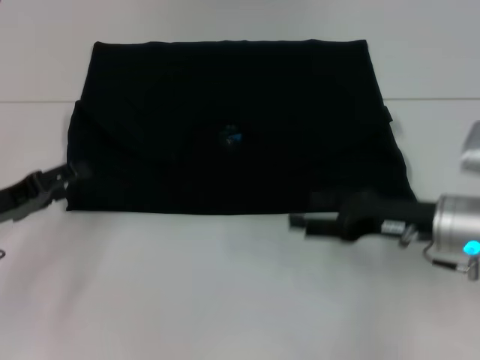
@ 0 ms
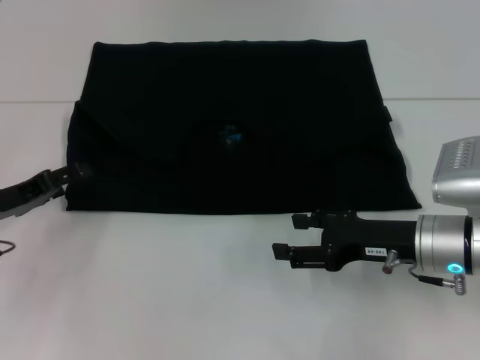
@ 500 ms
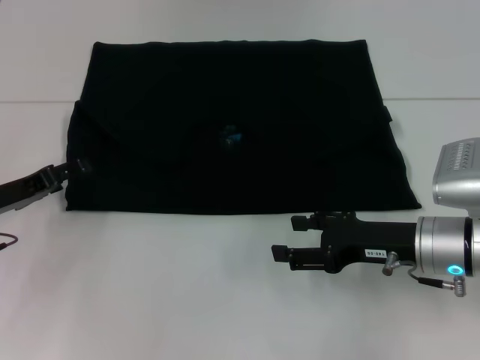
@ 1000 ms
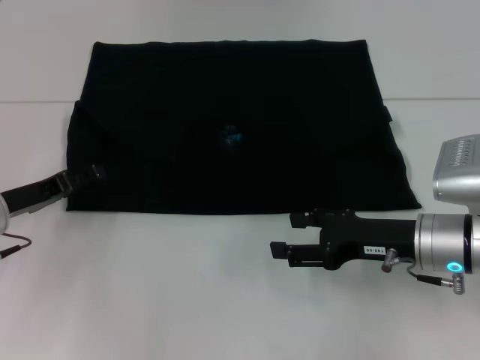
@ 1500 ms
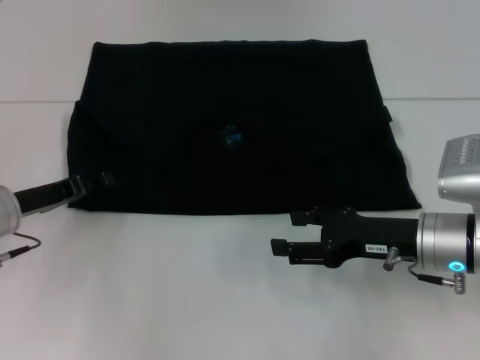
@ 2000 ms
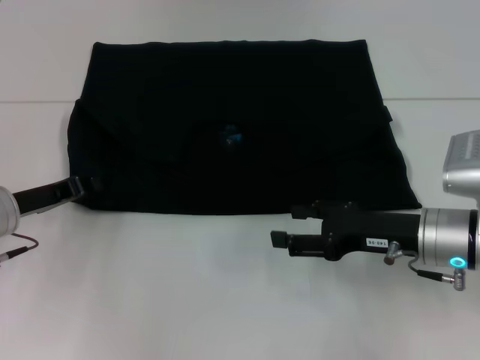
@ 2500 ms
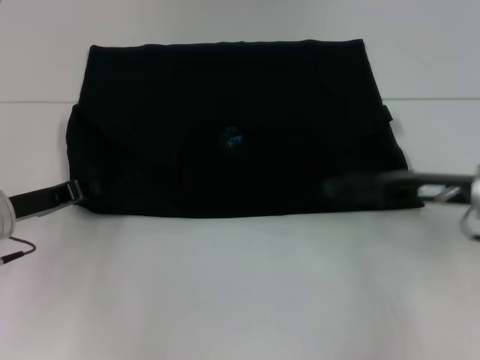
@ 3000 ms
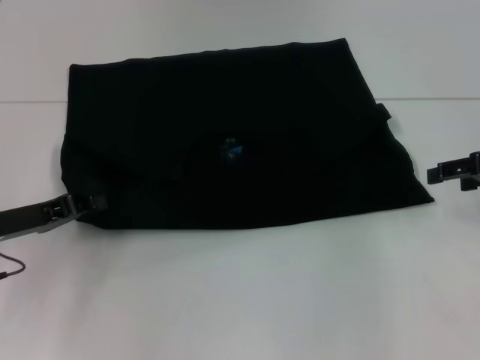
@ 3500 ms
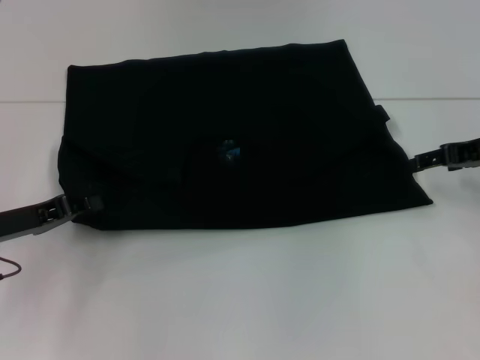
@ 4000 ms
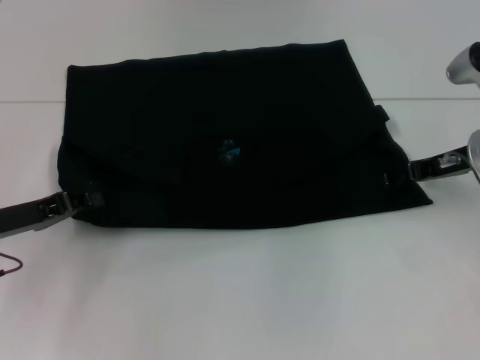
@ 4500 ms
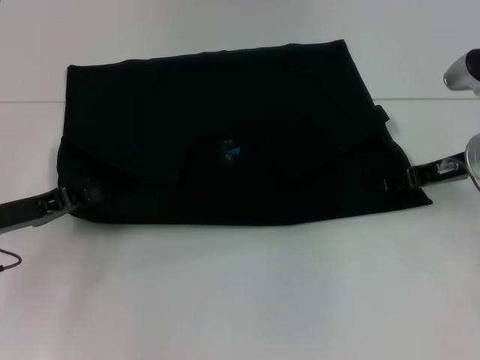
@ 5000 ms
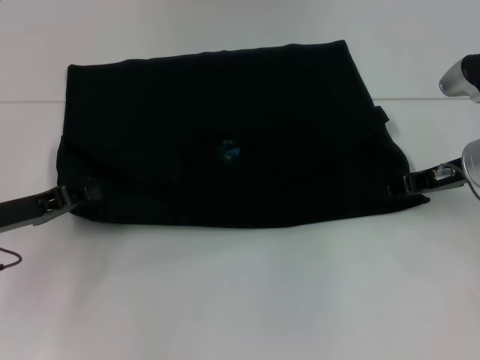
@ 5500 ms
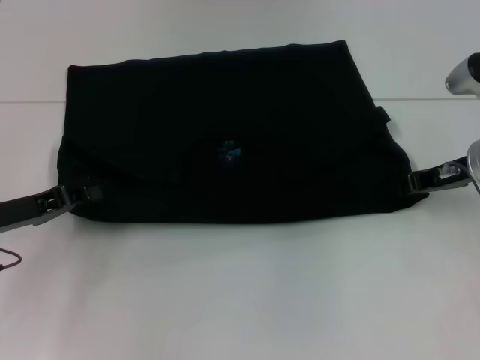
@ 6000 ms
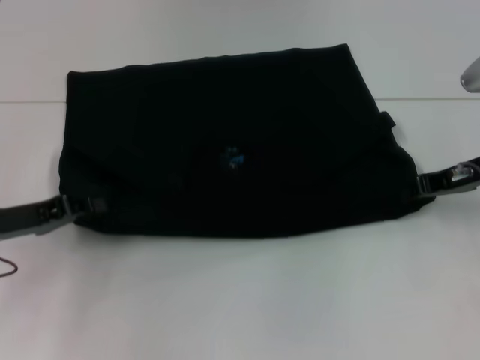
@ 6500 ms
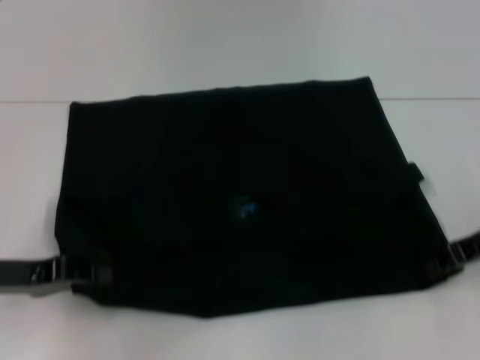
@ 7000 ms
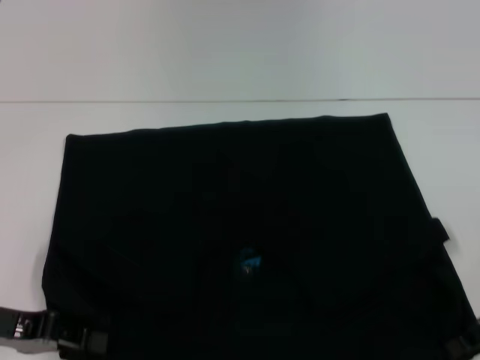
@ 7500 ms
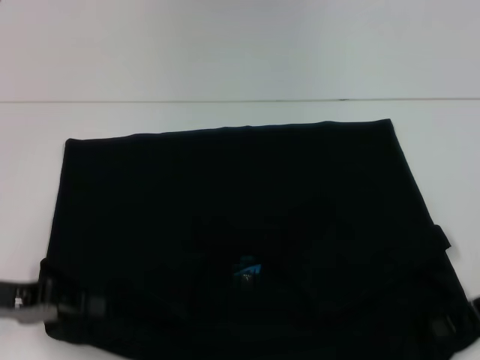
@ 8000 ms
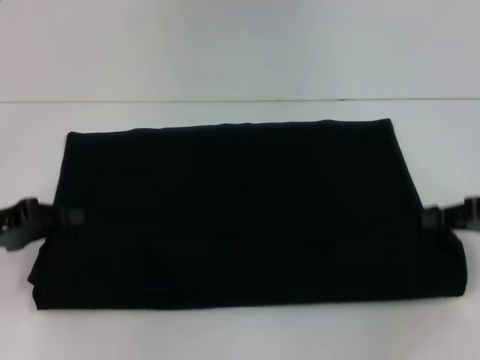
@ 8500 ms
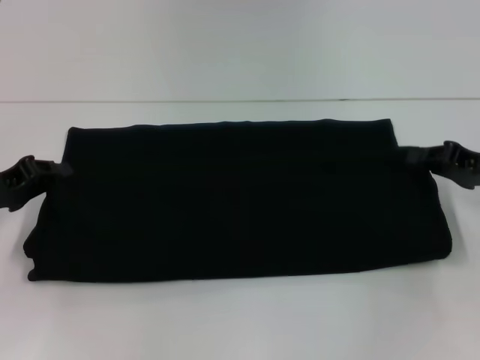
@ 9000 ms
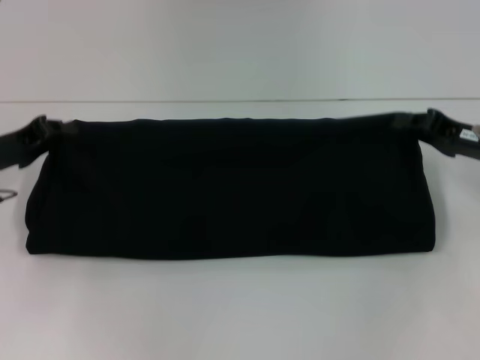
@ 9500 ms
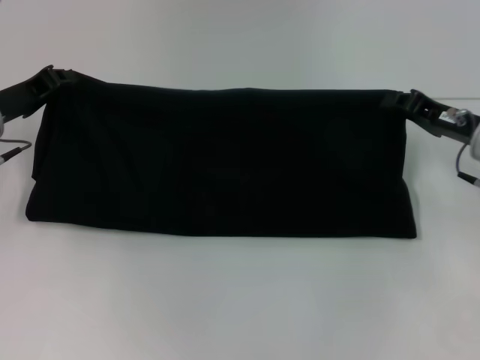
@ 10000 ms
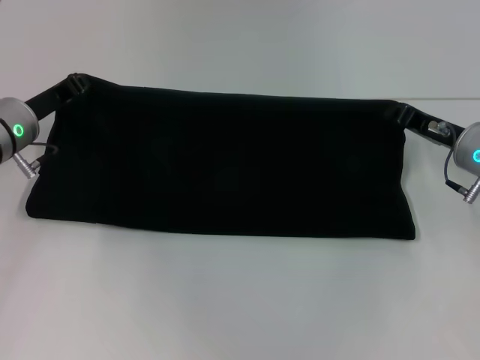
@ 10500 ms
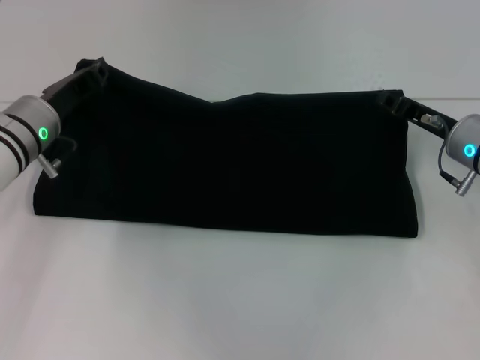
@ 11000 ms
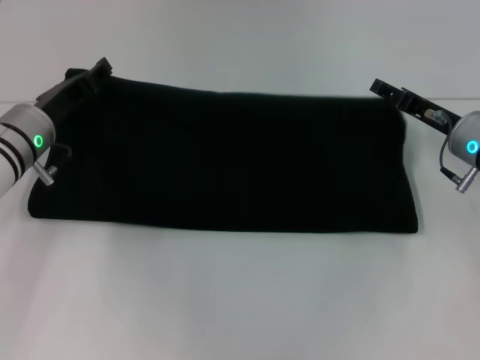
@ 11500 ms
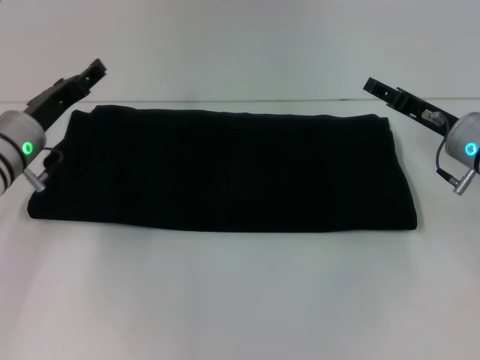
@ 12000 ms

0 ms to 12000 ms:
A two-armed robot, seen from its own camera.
Step, 0 ms to 7500 ms: Pull the clothes with your left hand.
Step, 0 ms to 7500 ms: Pull the clothes with your right hand.
Step, 8000 ms to 11500 ms: Fold the clothes with your right hand.
0 ms to 2000 ms: The left gripper shifts by roughly 5 cm.
2000 ms to 4000 ms: The left gripper closes, while the right gripper is displaced to the right, forward and upward by approximately 15 cm.
4000 ms to 6000 ms: The right gripper changes place by approximately 5 cm, and closes up.
6000 ms to 8000 ms: The right gripper shifts approximately 10 cm backward and to the right, while the left gripper heads backward, covering some 5 cm.
8000 ms to 10000 ms: The right gripper moves forward, roughly 10 cm. The left gripper shifts some 15 cm forward.
10000 ms to 12000 ms: The right gripper opens up; the left gripper shifts by roughly 5 cm, and opens its fingers.

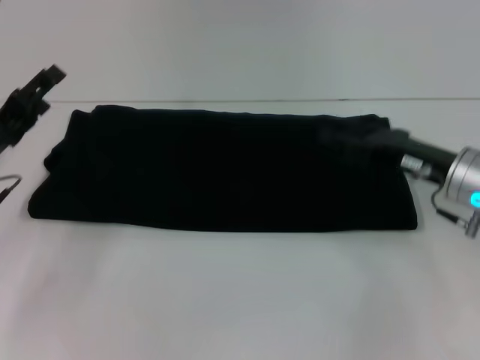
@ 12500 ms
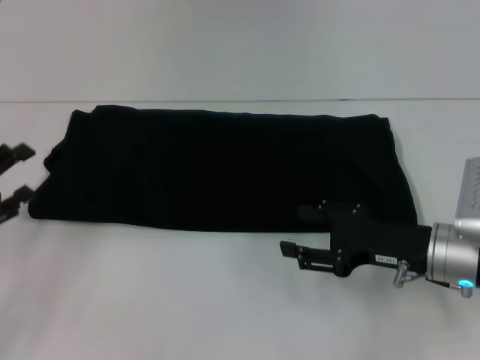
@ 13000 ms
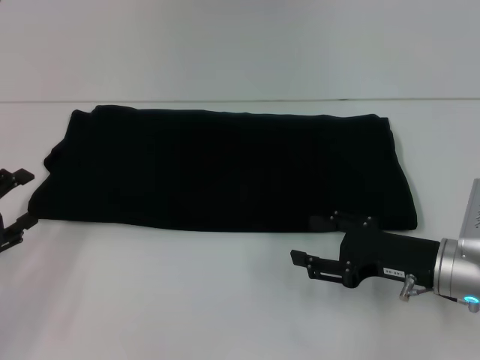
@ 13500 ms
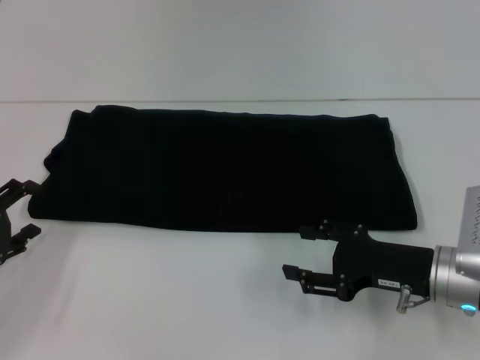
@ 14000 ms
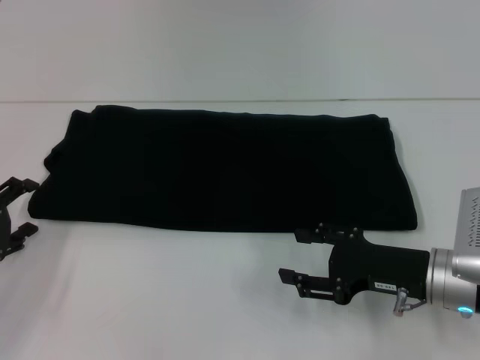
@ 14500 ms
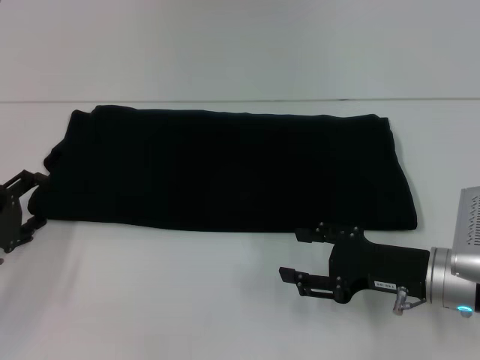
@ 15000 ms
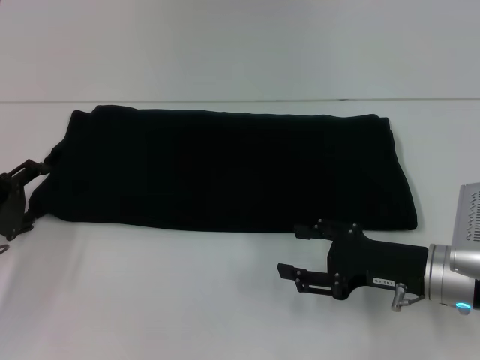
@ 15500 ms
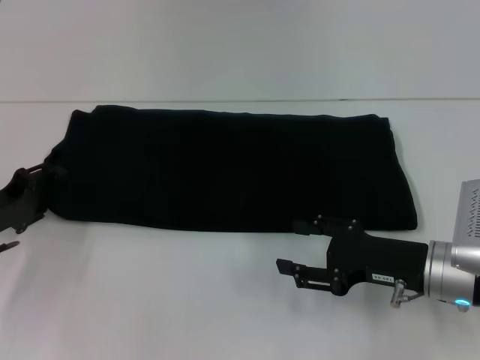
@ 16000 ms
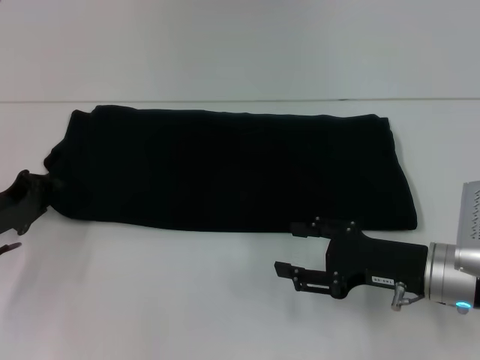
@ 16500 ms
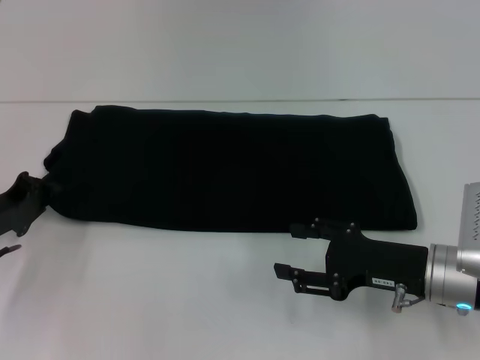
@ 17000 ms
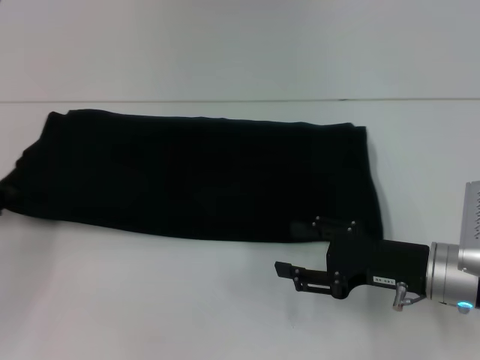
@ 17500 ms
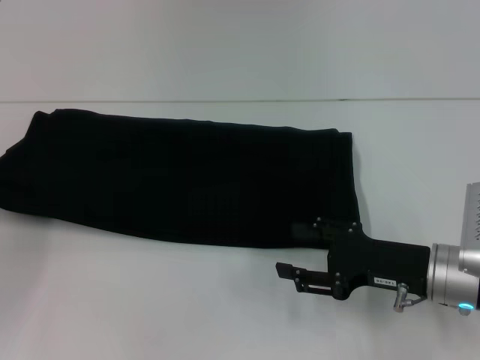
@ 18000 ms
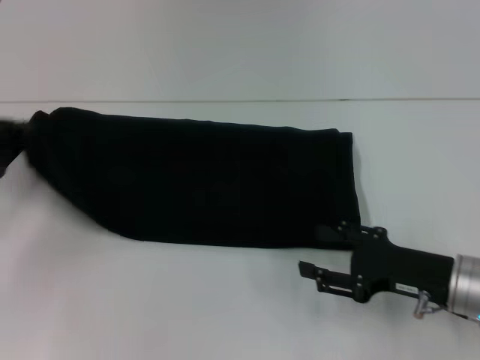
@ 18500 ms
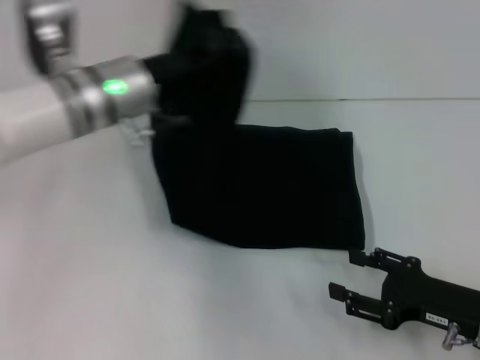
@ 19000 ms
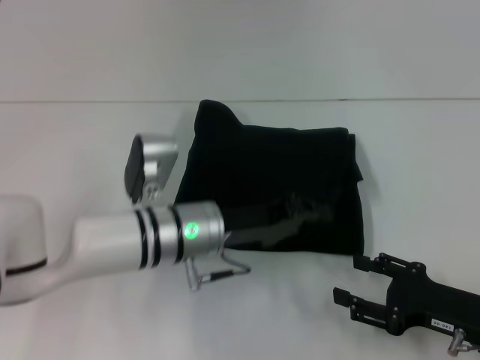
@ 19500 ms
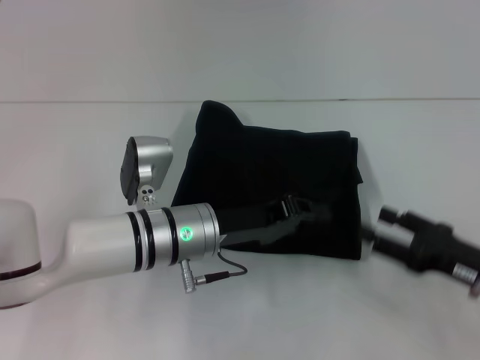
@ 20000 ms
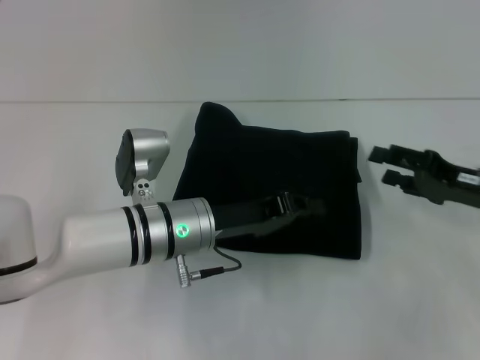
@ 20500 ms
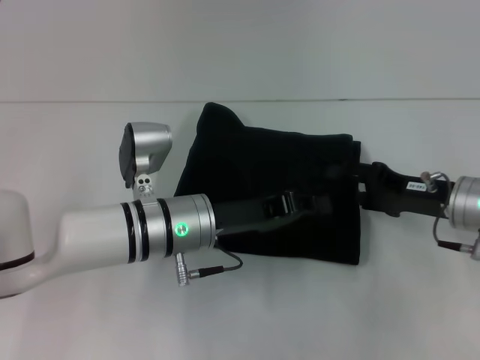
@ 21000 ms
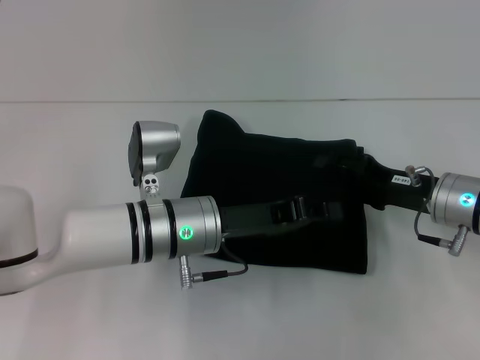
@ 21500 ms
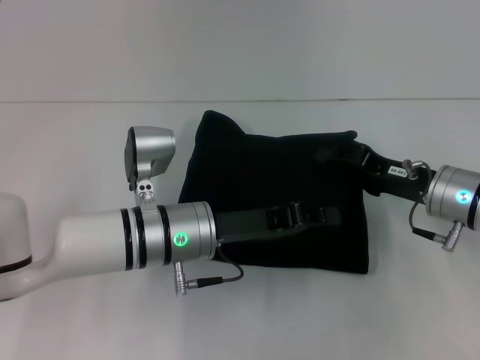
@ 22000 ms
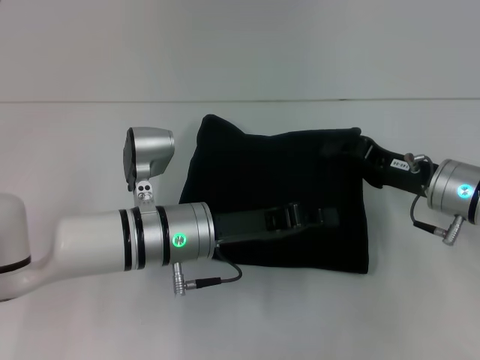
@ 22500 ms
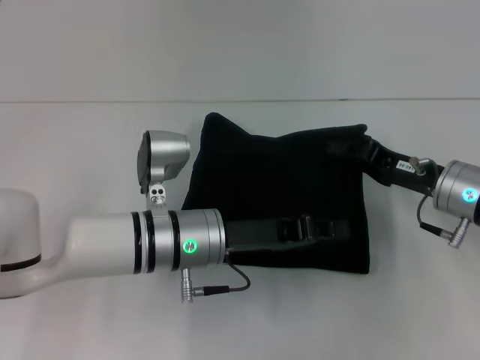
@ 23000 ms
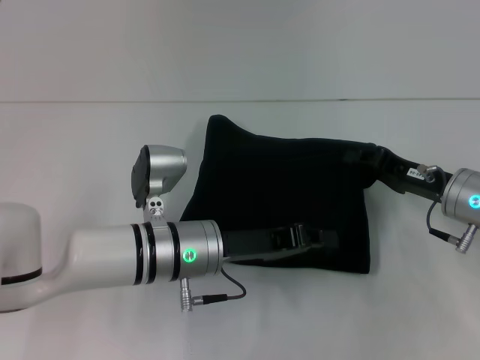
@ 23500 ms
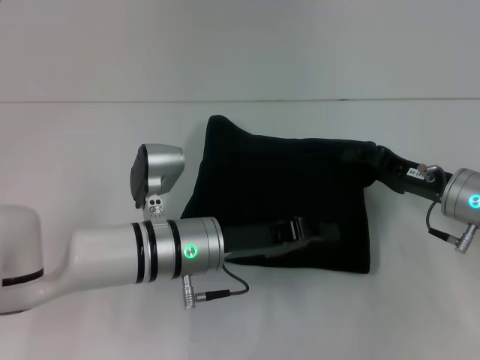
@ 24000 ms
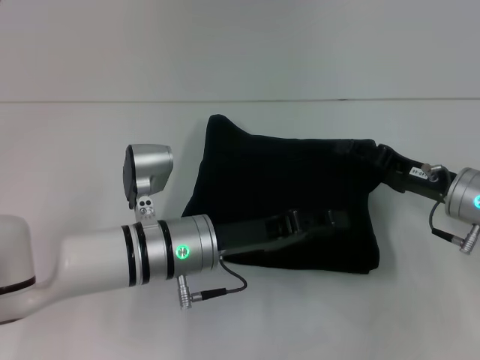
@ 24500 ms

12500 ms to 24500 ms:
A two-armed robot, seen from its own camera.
Step, 12500 ms to 20000 ms: Fold the clothes with your left hand.
12500 ms to 14500 ms: The two grippers go about 5 cm backward.
14500 ms to 16500 ms: The left gripper ends up approximately 5 cm from where it was, and closes its fingers.
16500 ms to 18500 ms: The left gripper changes place by approximately 5 cm.
18500 ms to 20500 ms: The right gripper is displaced forward and to the right by approximately 10 cm. Meanwhile the left gripper is displaced to the right by roughly 25 cm.
20500 ms to 22500 ms: The right gripper moves to the left, approximately 5 cm, and closes.
22500 ms to 24500 ms: The right gripper opens.

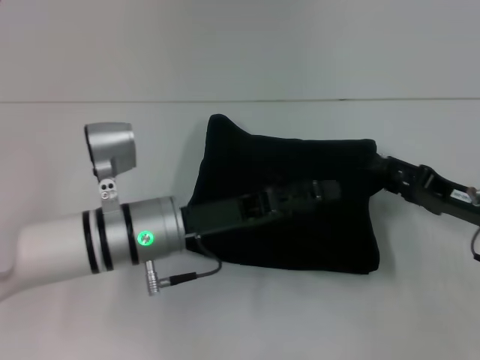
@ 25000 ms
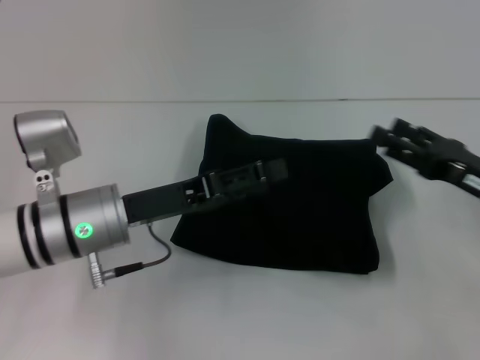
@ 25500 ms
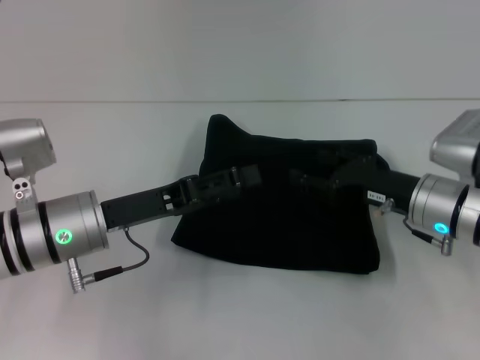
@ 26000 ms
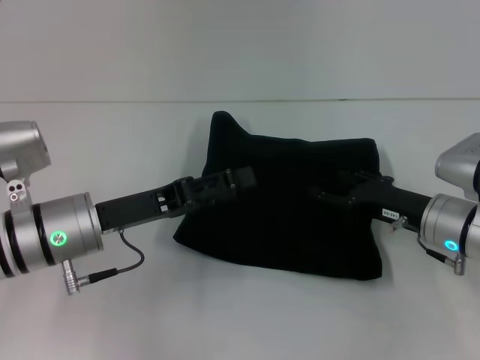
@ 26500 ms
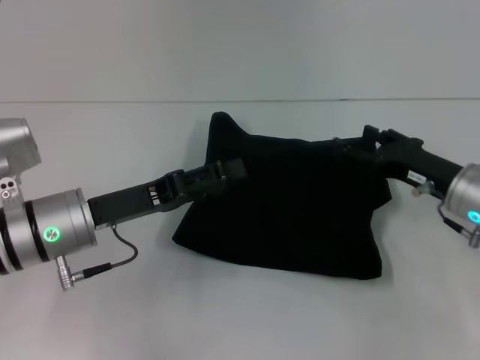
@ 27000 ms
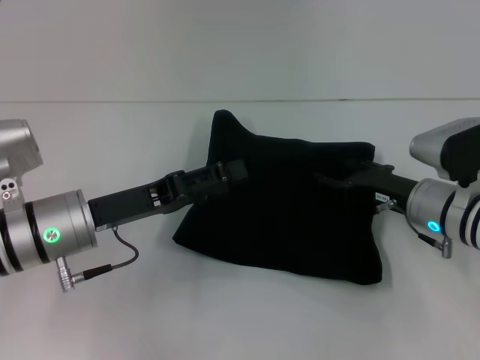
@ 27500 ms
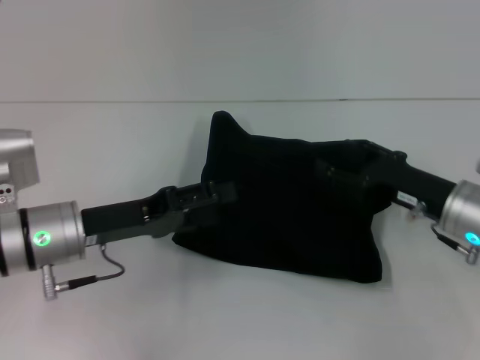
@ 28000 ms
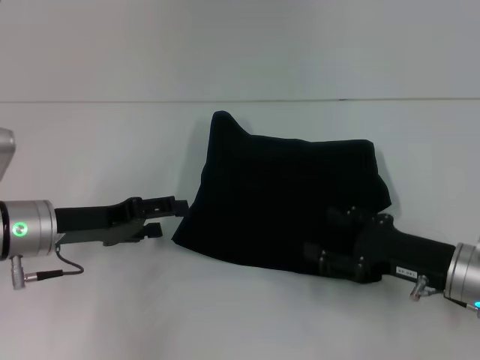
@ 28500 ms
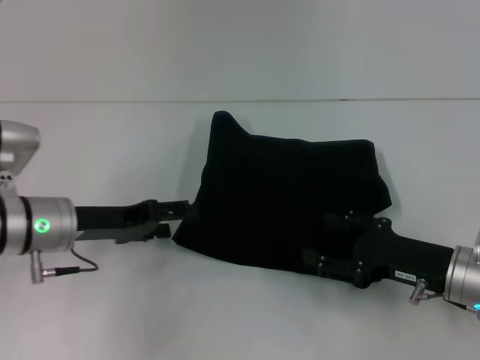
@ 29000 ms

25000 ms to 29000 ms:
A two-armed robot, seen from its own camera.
25000 ms to 27000 ms: The left gripper goes approximately 10 cm to the left. Meanwhile the right gripper shifts by approximately 5 cm.
27000 ms to 29000 ms: The right gripper goes some 5 cm backward.
